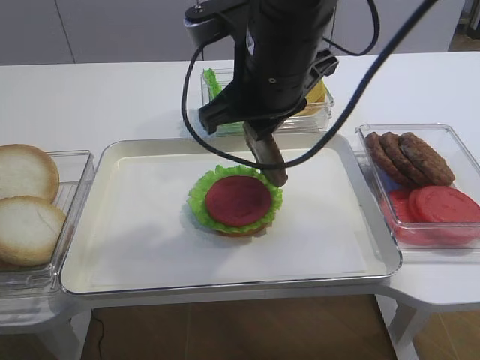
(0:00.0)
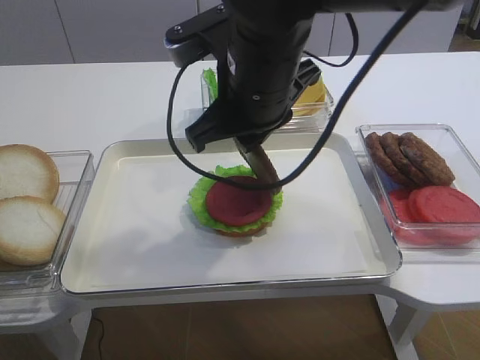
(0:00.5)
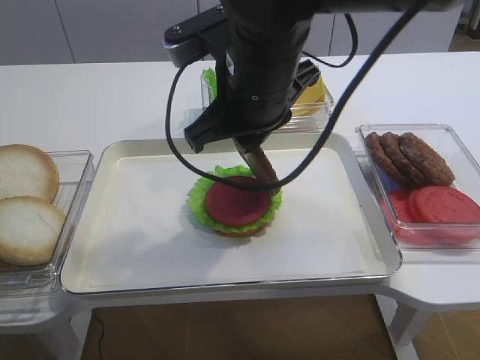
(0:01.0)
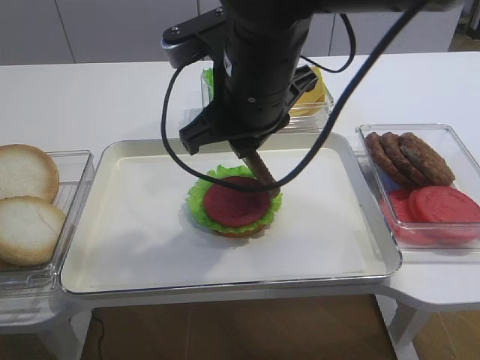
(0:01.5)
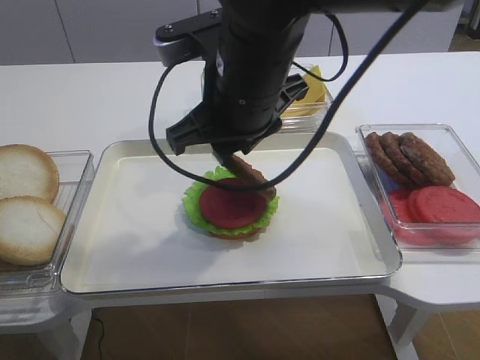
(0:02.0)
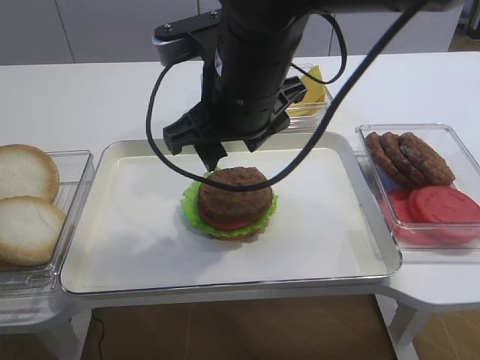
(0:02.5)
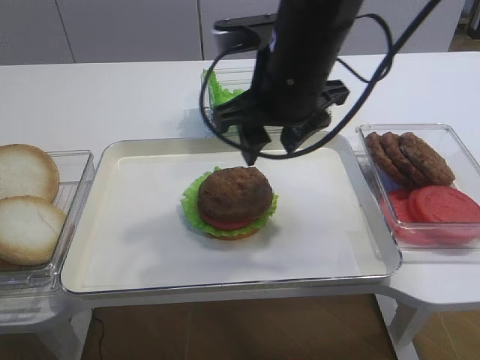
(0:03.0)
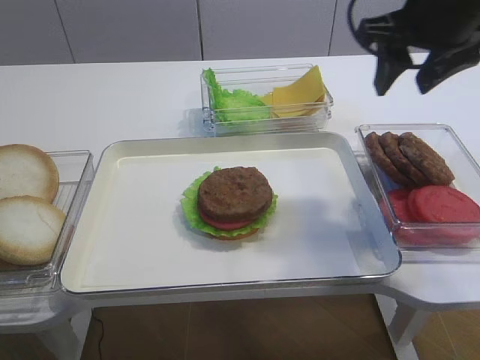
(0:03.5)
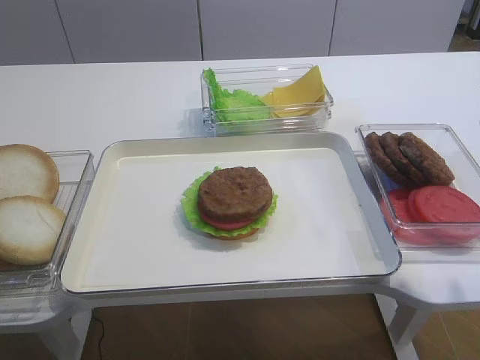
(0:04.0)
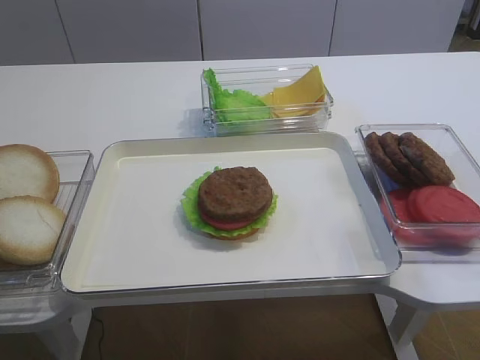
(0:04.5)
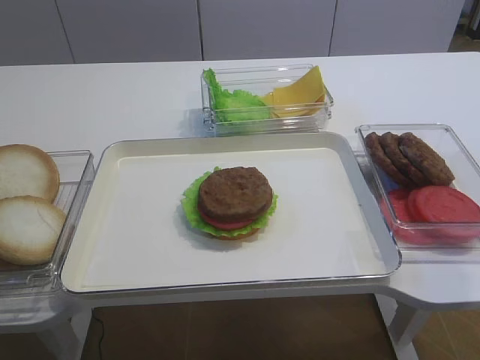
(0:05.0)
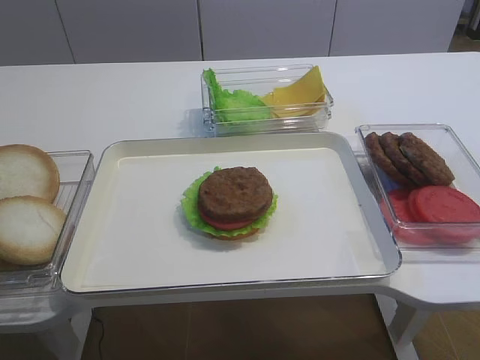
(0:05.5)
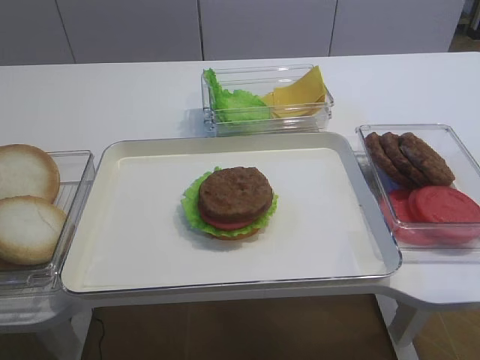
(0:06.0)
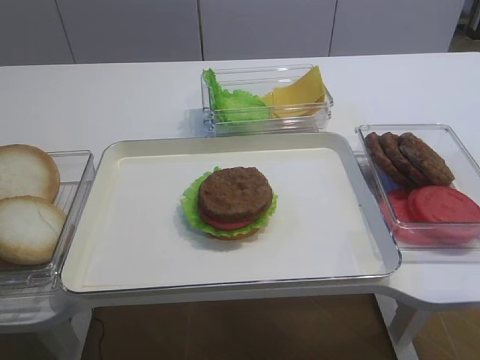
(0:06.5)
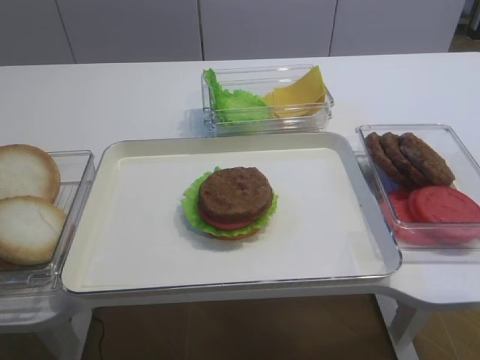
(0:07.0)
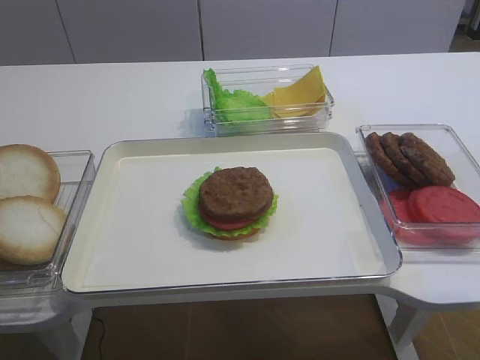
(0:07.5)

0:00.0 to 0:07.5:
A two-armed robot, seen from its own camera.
Step, 0:00.0 to 0:02.0: Place the cutlet on the tomato slice with the right gripper.
0:00.0 to 0:02.0: The grippers stay close to where they were, moving slightly.
0:02.0 to 0:04.0: The right gripper is displaced to the right by approximately 25 cm, and opens up.
0:04.0 to 0:05.5: The right gripper is displaced backward by approximately 25 cm.

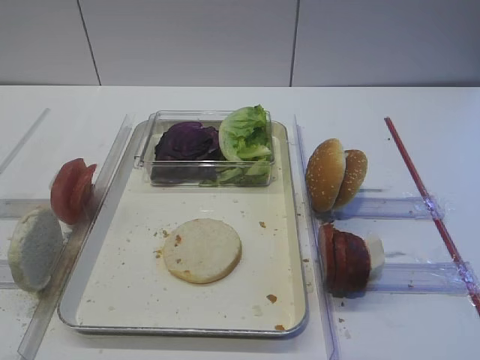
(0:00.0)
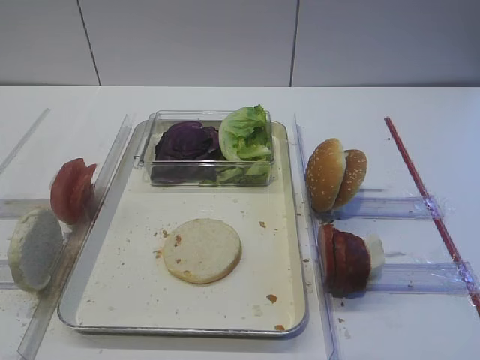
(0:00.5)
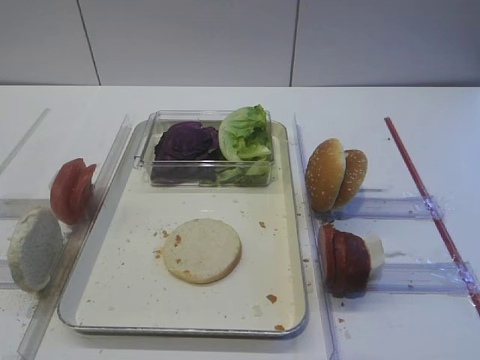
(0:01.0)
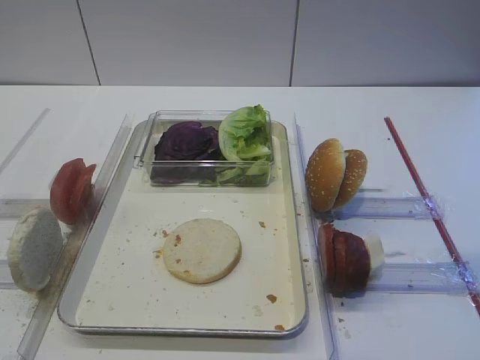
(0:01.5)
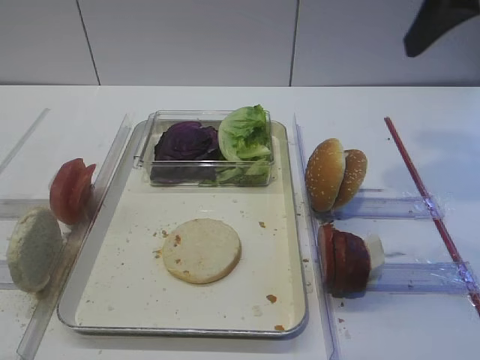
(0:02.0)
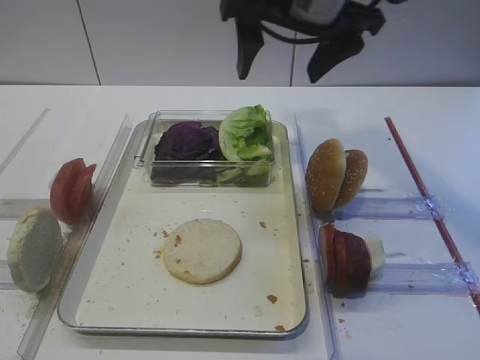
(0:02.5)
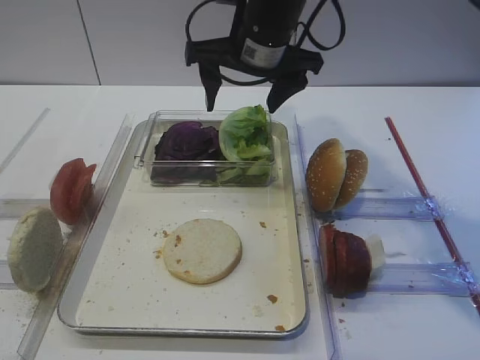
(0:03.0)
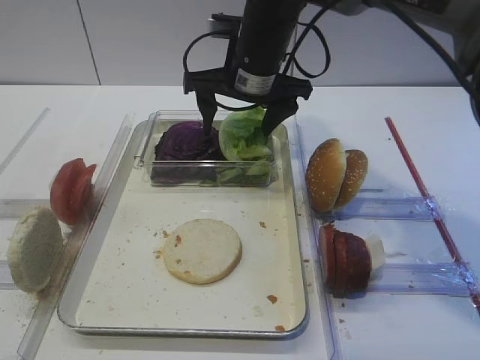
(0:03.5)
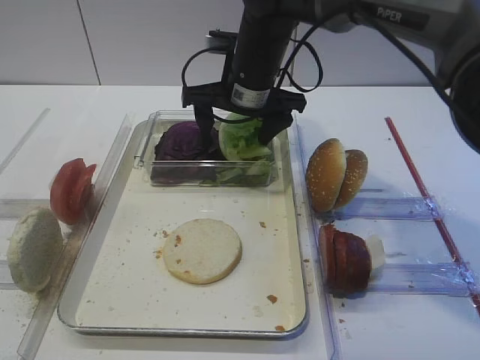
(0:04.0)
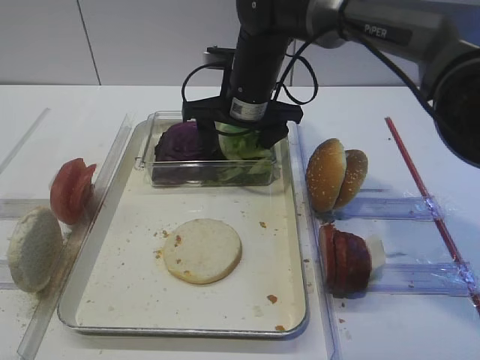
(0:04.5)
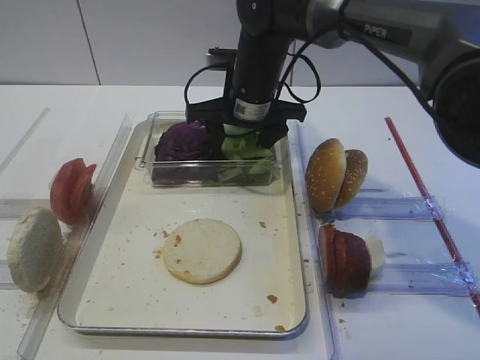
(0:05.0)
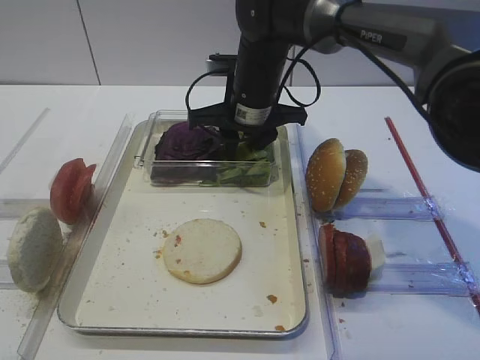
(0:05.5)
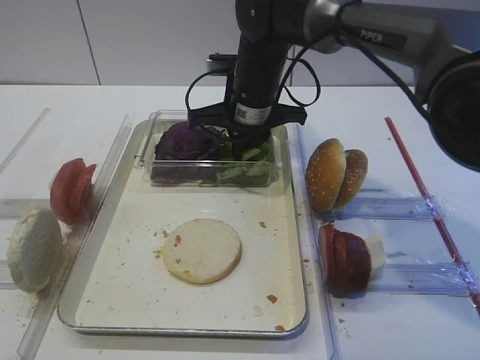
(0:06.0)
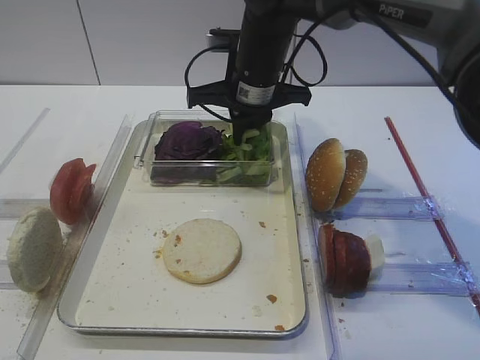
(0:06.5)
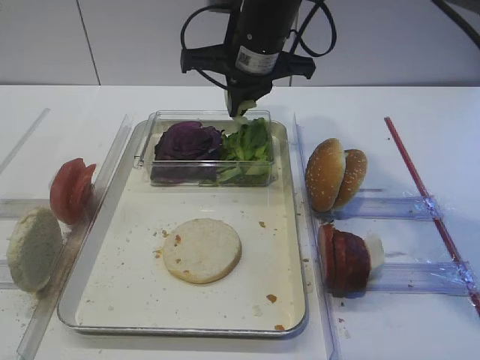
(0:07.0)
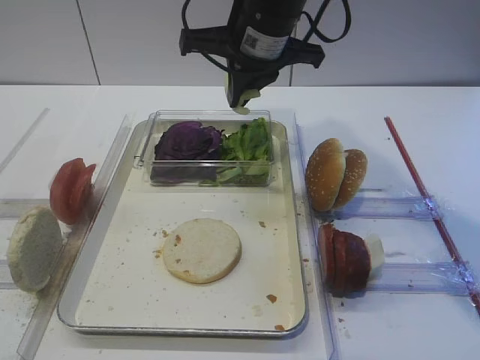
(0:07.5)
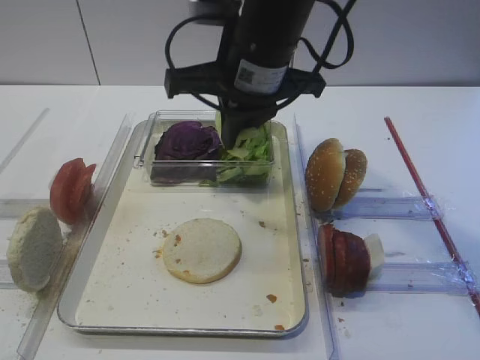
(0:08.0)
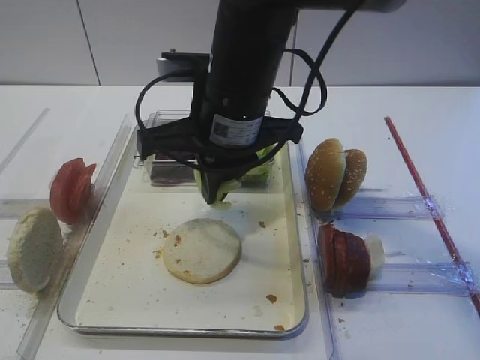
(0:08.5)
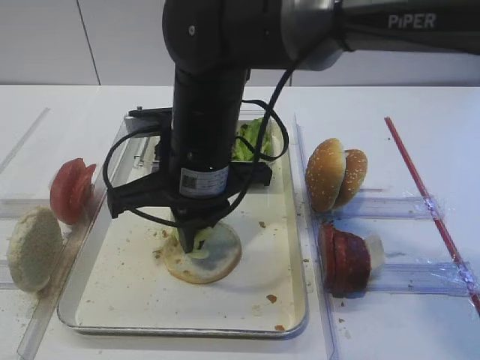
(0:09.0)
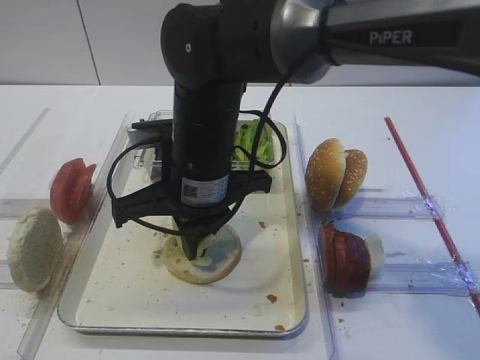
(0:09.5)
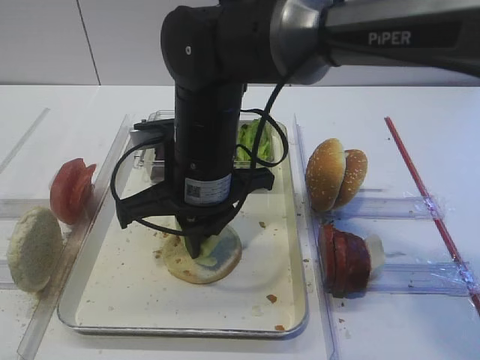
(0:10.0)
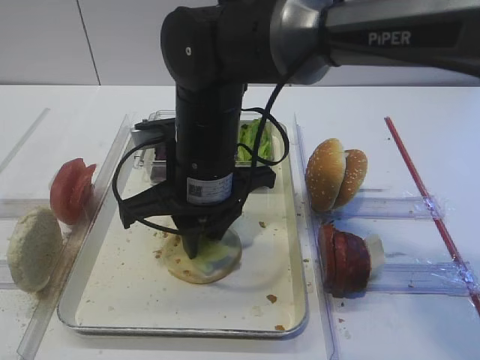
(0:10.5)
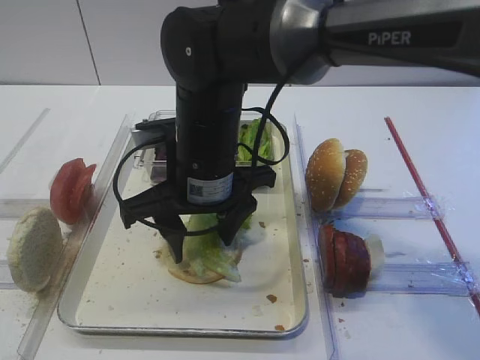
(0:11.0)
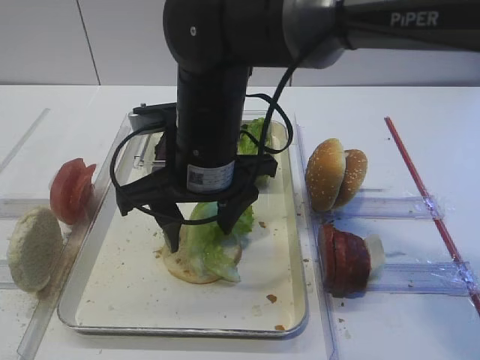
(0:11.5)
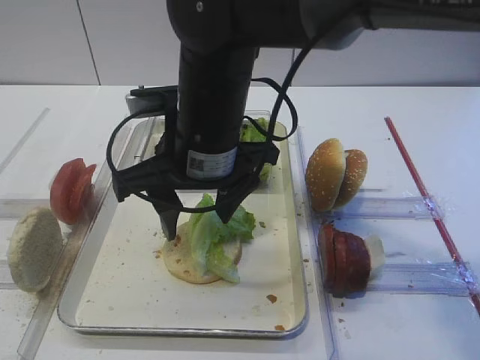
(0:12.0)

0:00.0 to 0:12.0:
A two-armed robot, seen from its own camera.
Step, 0:00.0 to 0:06.5: Pick up the lettuce leaf with the right gripper.
Step, 0:07.0 to 0:11.5: Place the lettuce leaf on the bread slice with the right gripper.
0:02.0 to 0:04.0: The right gripper travels to the left, forward and downward by approximately 30 cm.
0:04.0 to 0:06.0: The right gripper closes its fingers.
0:06.0 to 0:08.0: The right gripper shifts some 15 cm upward and backward.
0:08.0 to 0:10.0: The right gripper moves downward and to the left, about 10 cm.
0:10.0 to 0:12.0: The right gripper opens its fingers.

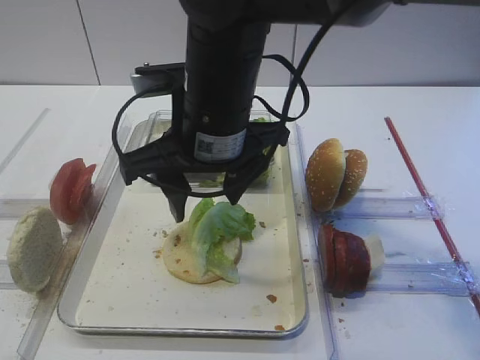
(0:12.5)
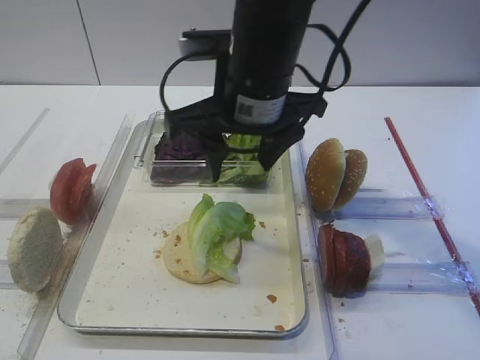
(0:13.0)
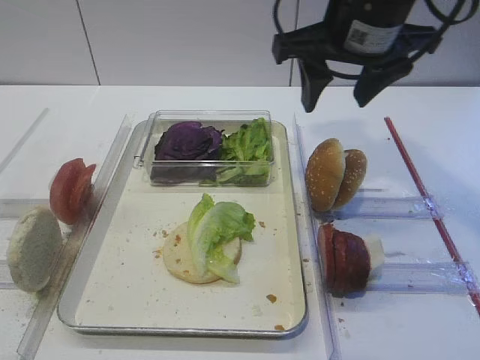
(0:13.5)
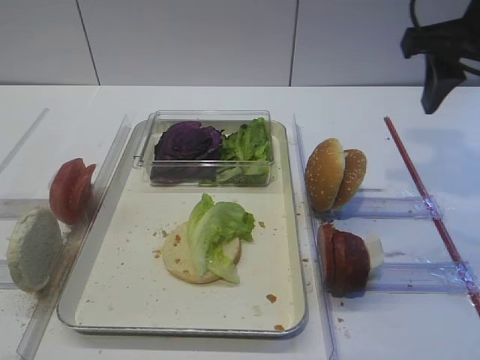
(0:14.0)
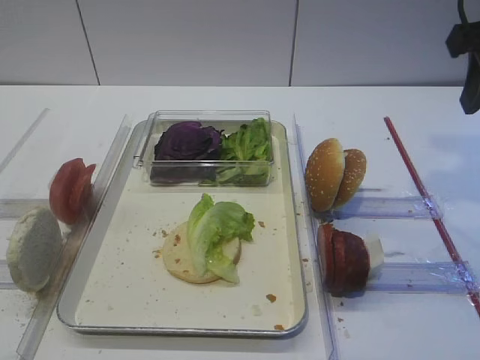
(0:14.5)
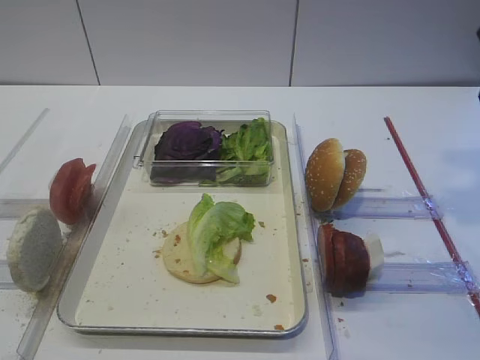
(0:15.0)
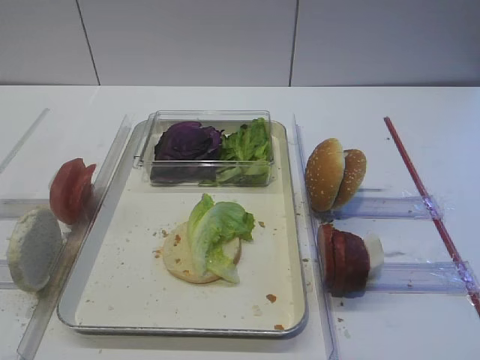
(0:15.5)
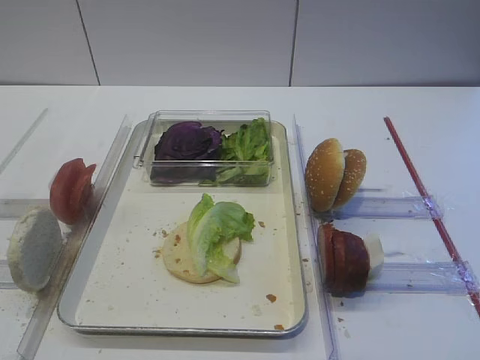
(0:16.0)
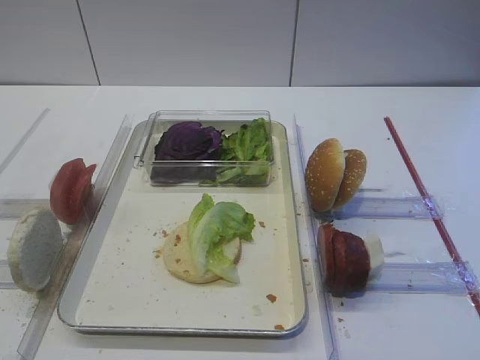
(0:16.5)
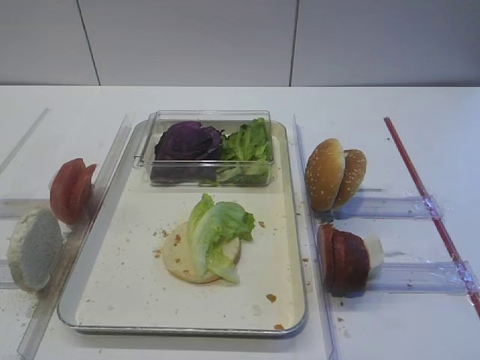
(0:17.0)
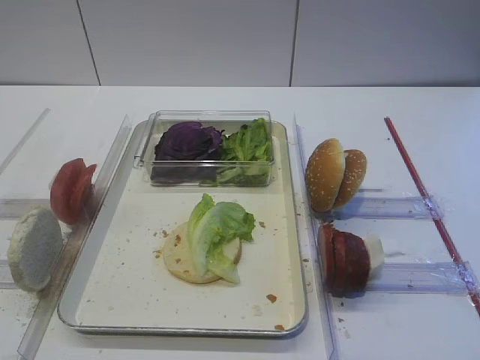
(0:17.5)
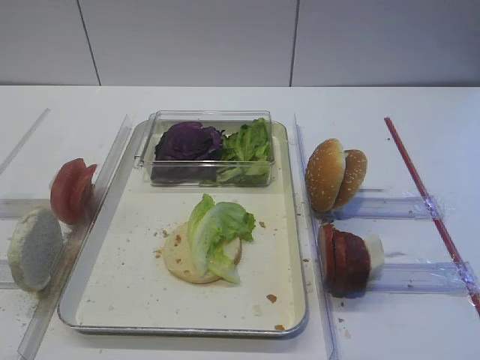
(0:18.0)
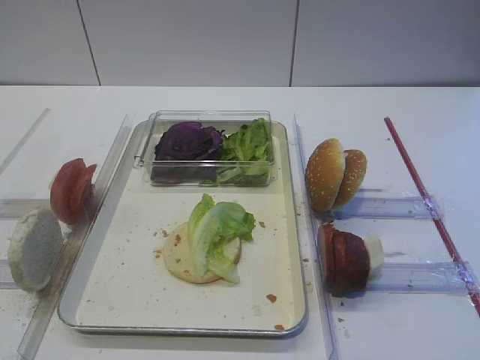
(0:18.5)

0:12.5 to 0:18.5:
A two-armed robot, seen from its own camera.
0:12.5 to 0:14.5: The right gripper goes about 25 cm to the right.
0:14.5 to 0:16.5: The right gripper heads backward, covering roughly 25 cm.
